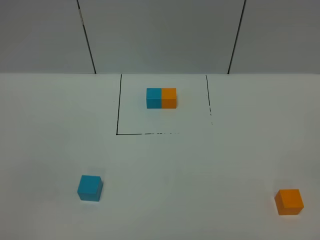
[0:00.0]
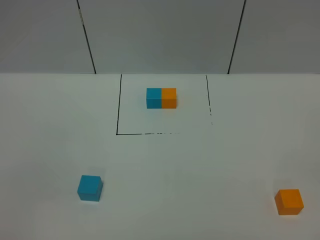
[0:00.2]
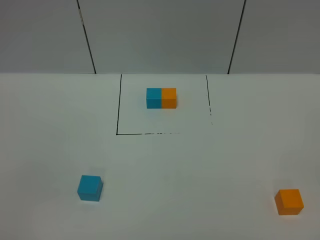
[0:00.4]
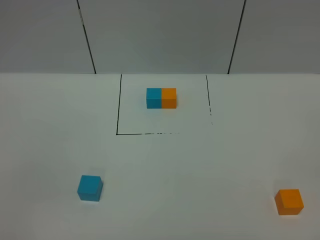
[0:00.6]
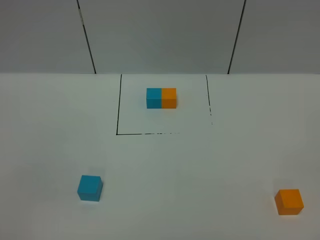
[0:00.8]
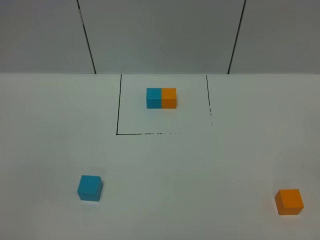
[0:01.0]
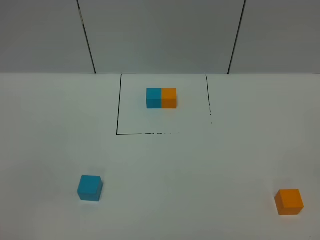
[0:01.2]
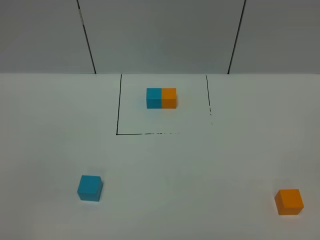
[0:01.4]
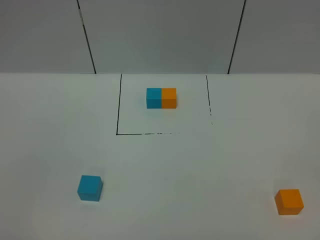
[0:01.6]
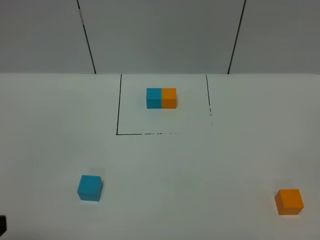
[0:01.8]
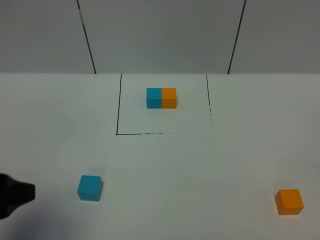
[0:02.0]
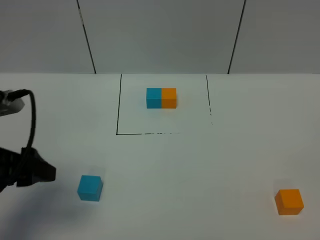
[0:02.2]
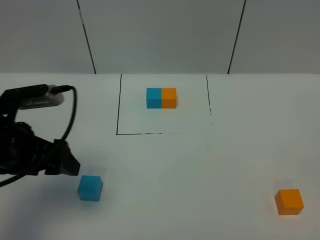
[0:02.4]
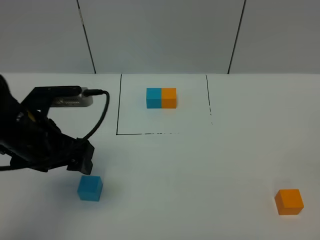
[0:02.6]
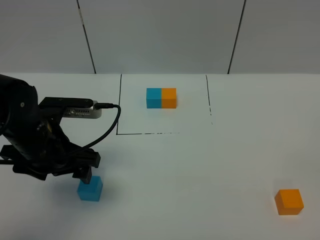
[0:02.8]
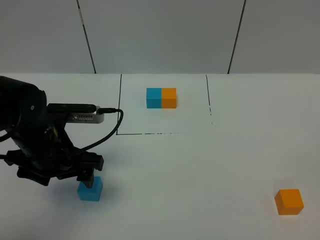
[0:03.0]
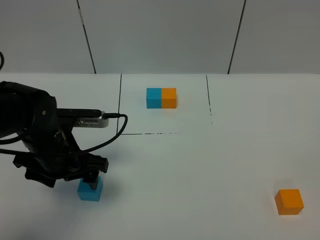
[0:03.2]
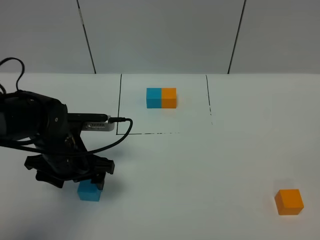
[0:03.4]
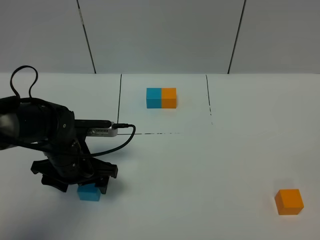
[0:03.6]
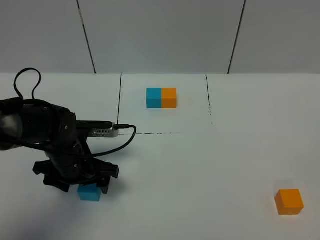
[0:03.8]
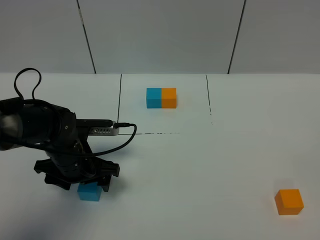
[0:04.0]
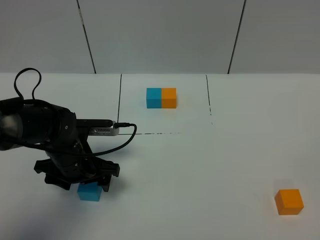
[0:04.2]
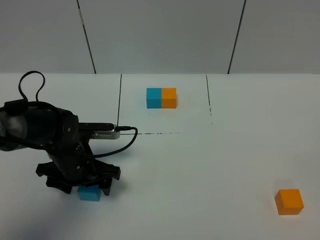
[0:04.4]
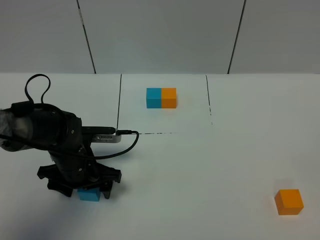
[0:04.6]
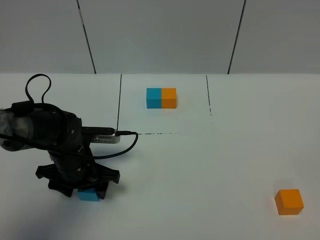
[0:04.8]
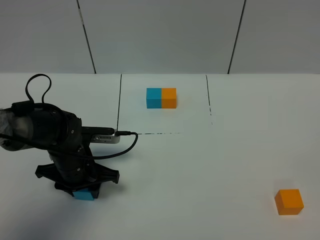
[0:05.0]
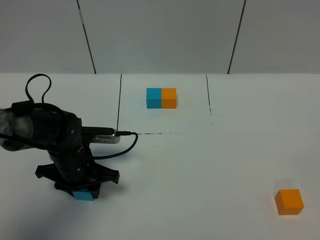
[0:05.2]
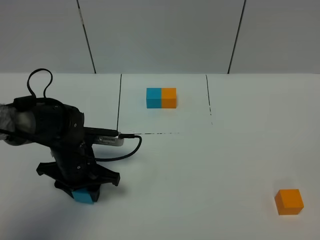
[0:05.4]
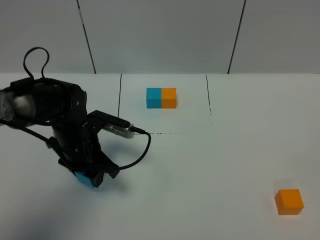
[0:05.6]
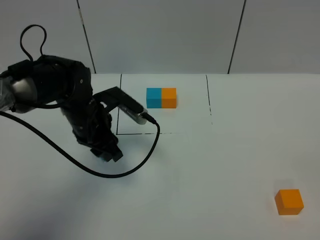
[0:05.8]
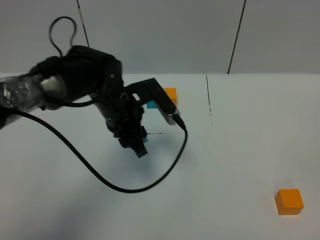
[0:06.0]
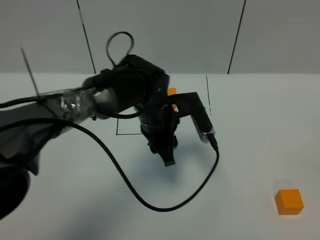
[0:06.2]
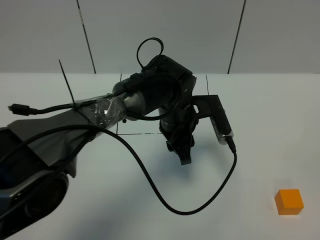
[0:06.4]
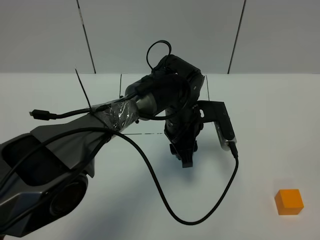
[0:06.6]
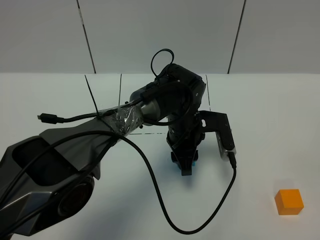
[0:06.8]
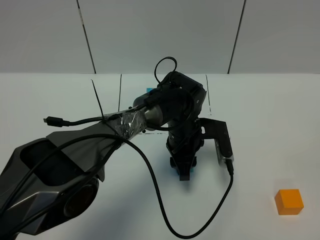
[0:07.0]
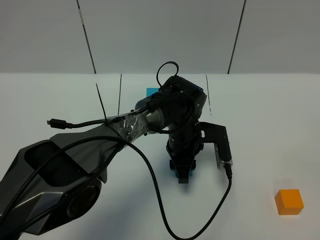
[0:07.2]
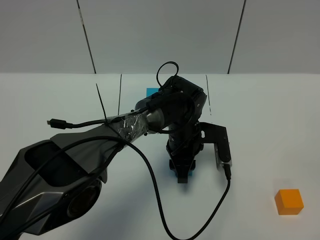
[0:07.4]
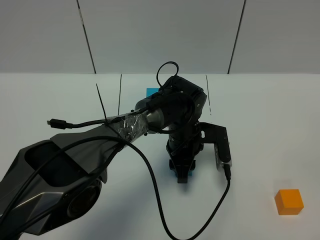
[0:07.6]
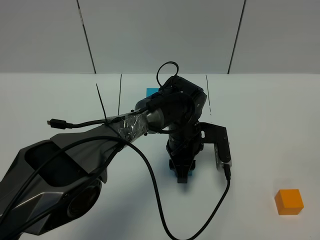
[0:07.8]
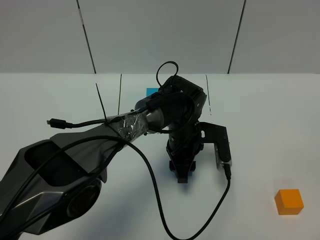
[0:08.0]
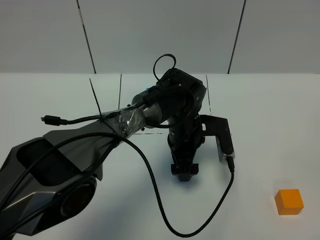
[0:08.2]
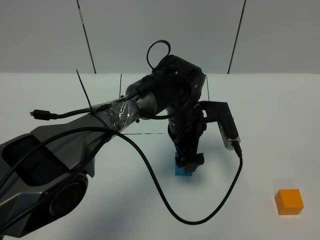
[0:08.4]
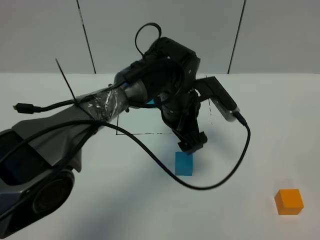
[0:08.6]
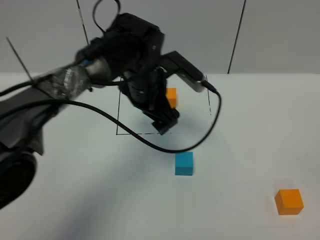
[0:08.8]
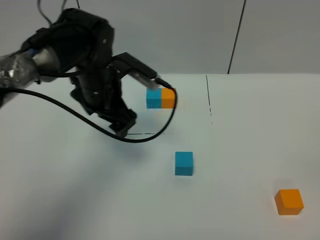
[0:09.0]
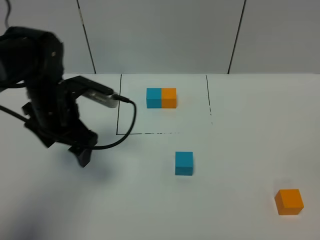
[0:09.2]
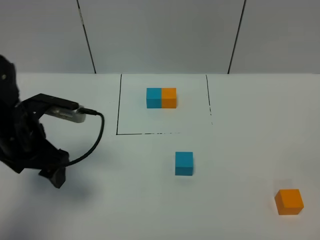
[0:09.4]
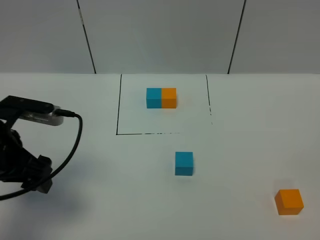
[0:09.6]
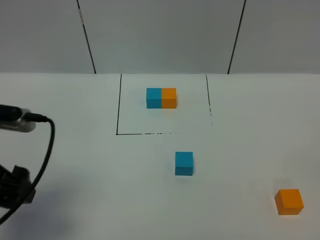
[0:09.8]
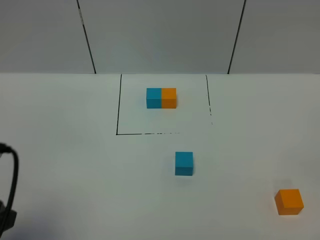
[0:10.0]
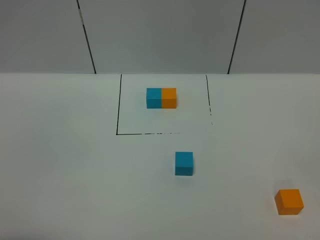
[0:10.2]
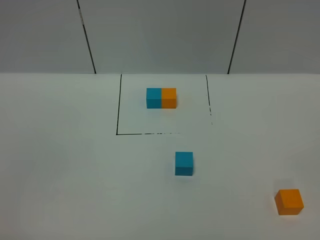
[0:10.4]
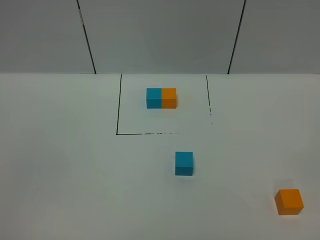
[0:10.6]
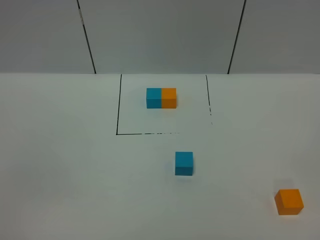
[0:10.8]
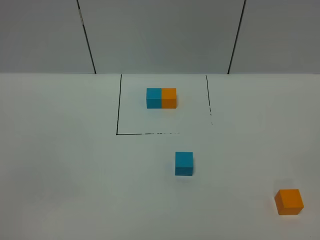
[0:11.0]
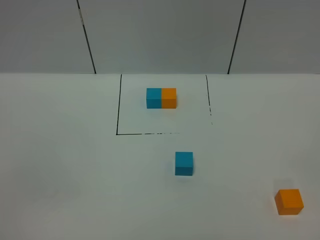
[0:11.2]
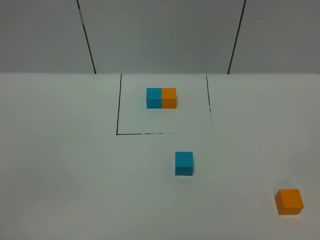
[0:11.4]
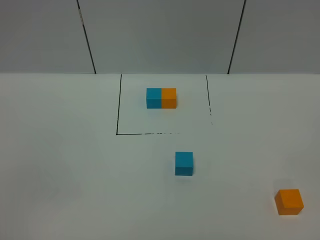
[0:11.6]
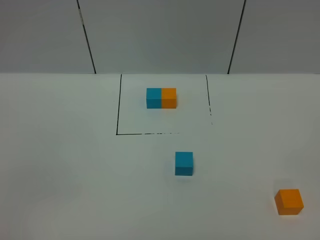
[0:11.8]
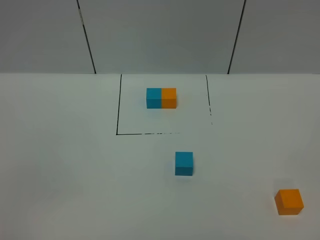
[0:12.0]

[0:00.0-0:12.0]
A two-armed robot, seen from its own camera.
Task of the whole recording: According to the building block template in front, assemble the scattered blocks together.
Step, 0:01.8 to 0:08.6: Put the blue cube in the center of the table.
0:01.6 to 0:03.0: The left gripper is displaced forward by about 25 cm.
0:03.0 to 0:04.4: The left gripper travels downward by some 10 cm.
0:04.4 to 0:06.0: The left gripper shifts about 15 cm to the right, upward and forward, and closes up.
0:06.0 to 0:07.6: The left gripper shifts approximately 15 cm to the right and downward.
0:07.6 to 0:09.0: The left gripper shifts some 20 cm to the left and upward, and opens.
0:09.0 to 0:10.4: The left gripper heads backward and to the left, covering some 40 cm.

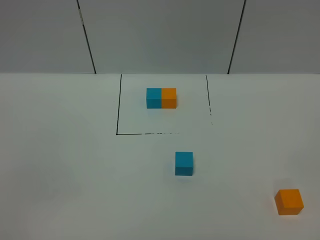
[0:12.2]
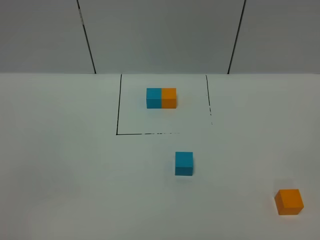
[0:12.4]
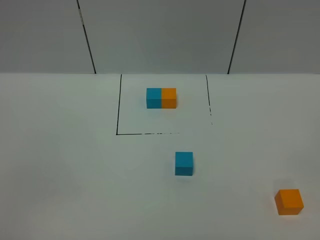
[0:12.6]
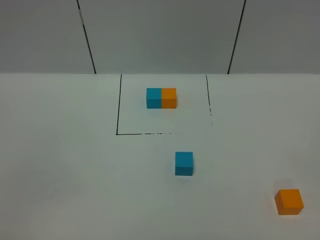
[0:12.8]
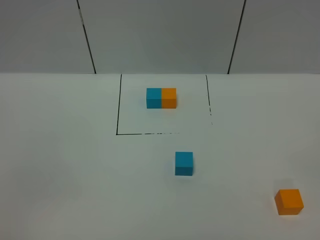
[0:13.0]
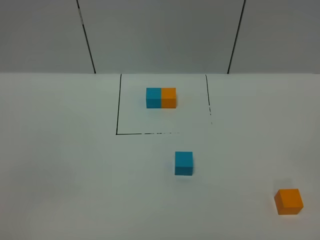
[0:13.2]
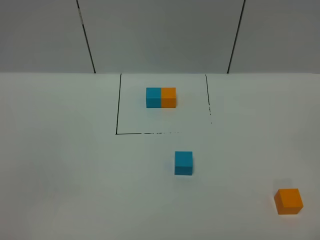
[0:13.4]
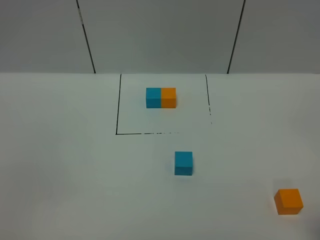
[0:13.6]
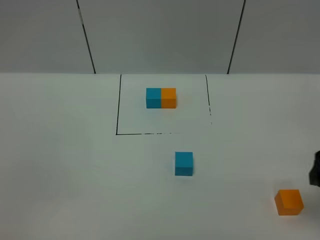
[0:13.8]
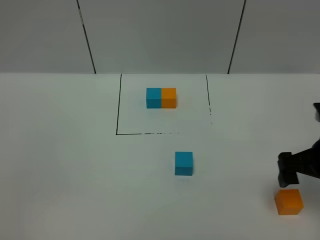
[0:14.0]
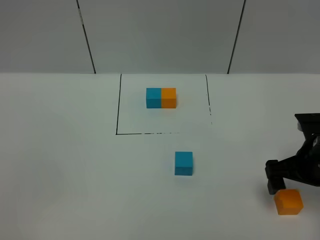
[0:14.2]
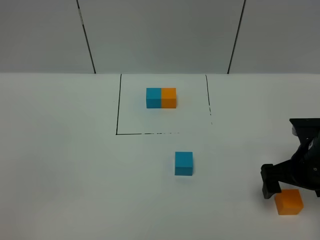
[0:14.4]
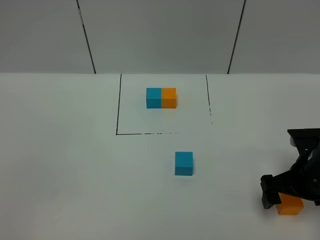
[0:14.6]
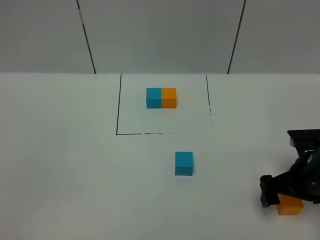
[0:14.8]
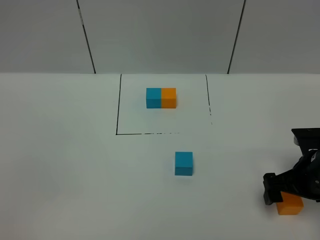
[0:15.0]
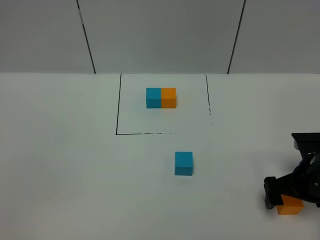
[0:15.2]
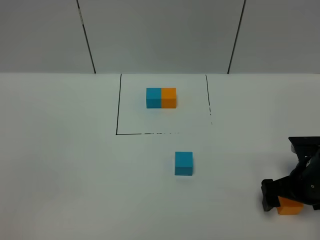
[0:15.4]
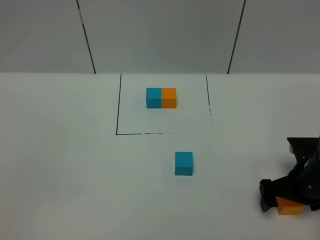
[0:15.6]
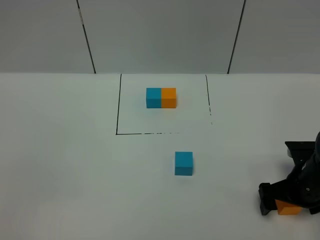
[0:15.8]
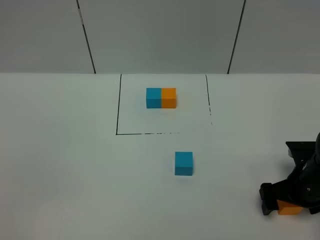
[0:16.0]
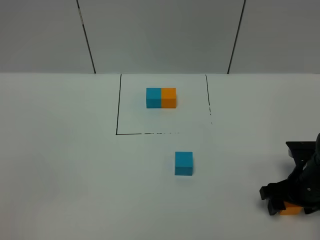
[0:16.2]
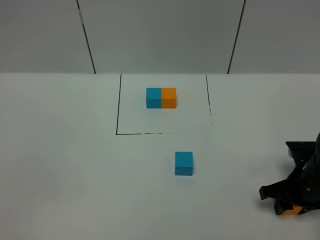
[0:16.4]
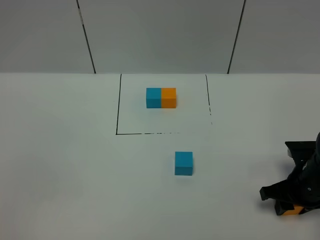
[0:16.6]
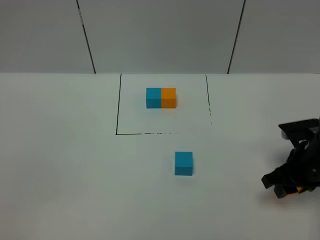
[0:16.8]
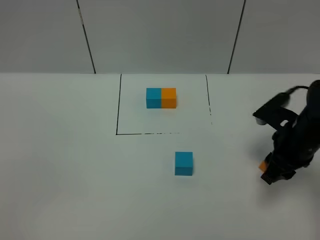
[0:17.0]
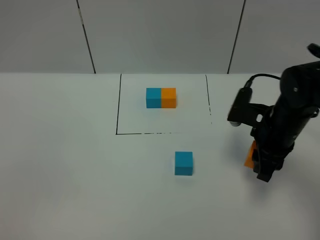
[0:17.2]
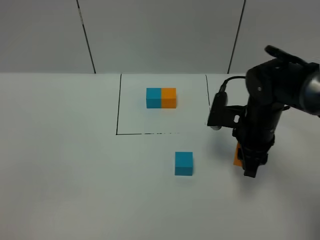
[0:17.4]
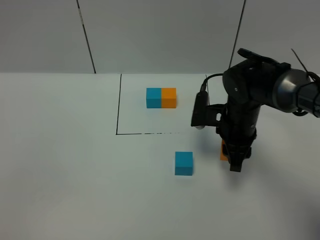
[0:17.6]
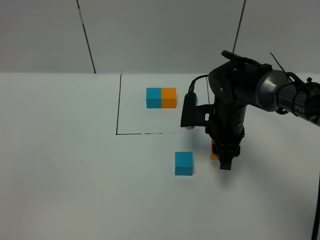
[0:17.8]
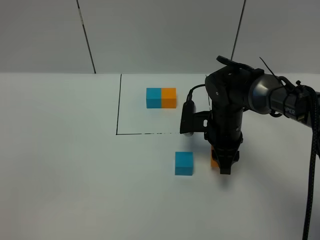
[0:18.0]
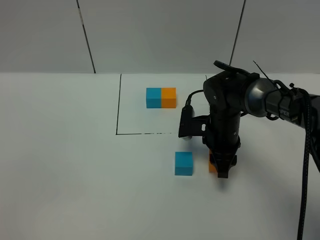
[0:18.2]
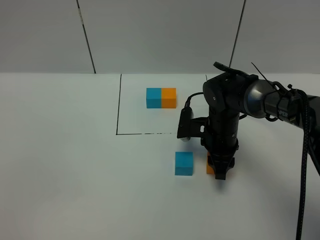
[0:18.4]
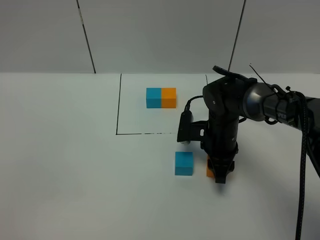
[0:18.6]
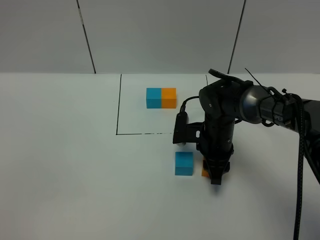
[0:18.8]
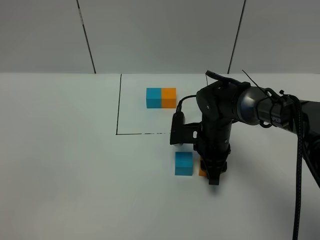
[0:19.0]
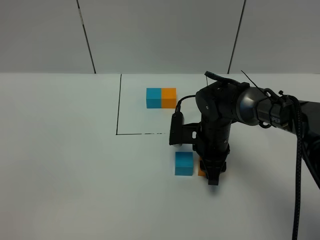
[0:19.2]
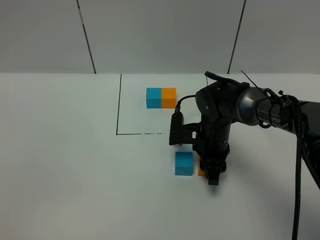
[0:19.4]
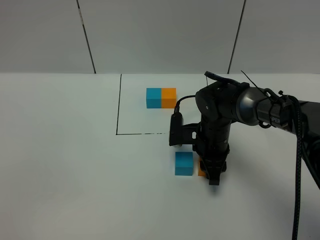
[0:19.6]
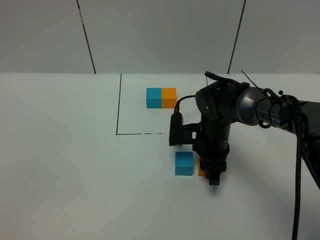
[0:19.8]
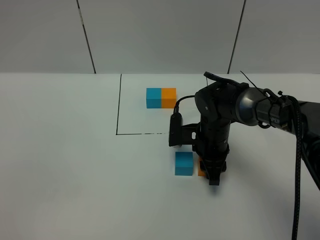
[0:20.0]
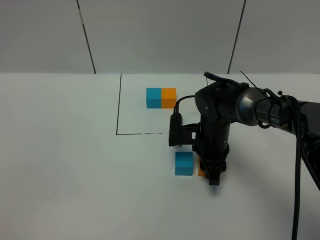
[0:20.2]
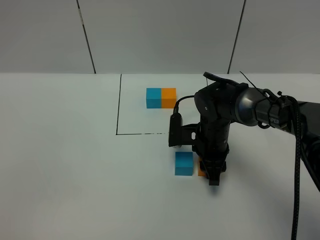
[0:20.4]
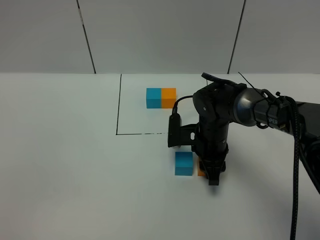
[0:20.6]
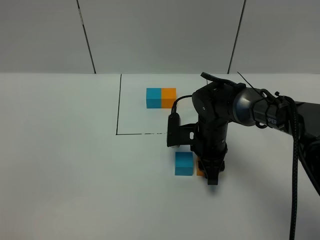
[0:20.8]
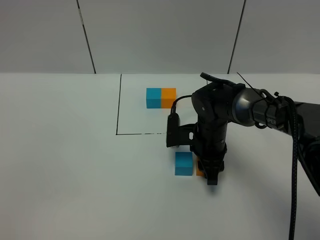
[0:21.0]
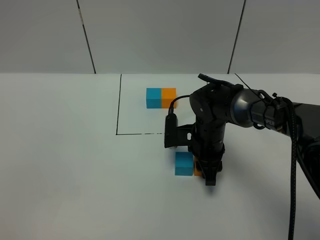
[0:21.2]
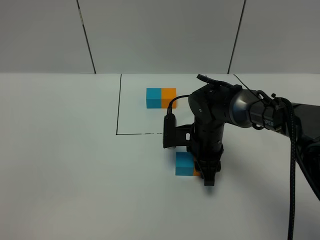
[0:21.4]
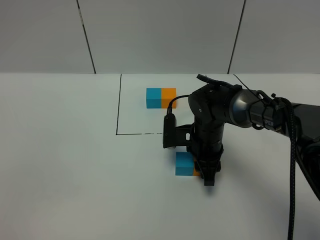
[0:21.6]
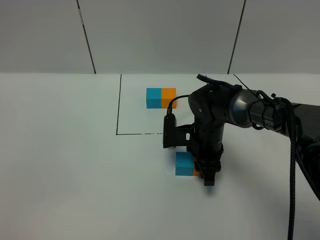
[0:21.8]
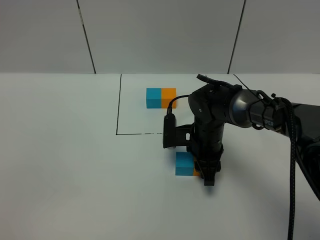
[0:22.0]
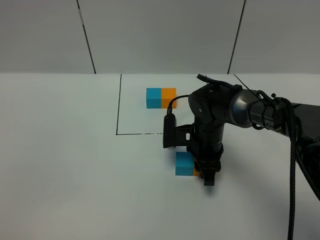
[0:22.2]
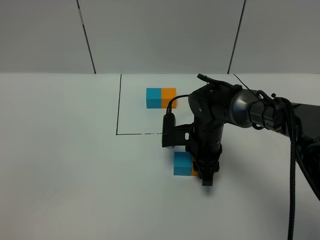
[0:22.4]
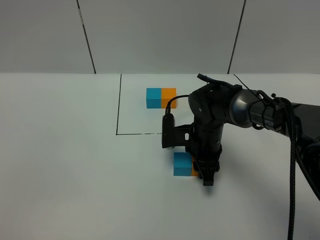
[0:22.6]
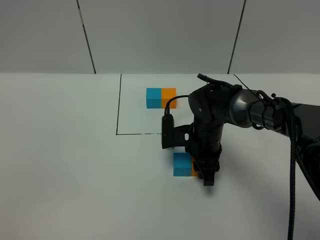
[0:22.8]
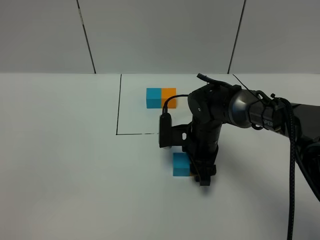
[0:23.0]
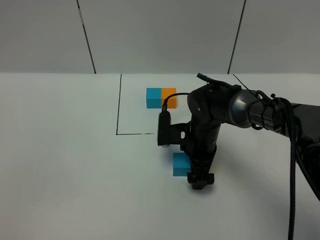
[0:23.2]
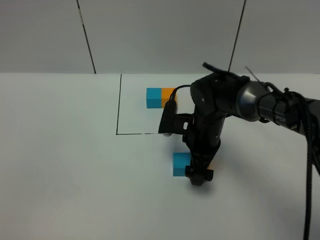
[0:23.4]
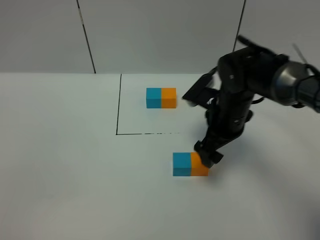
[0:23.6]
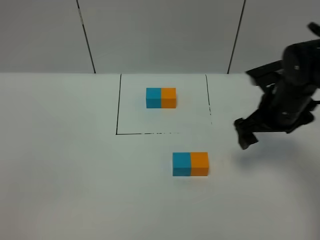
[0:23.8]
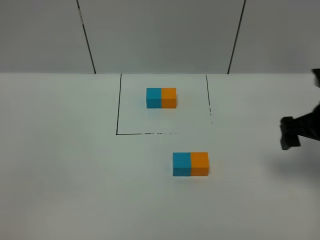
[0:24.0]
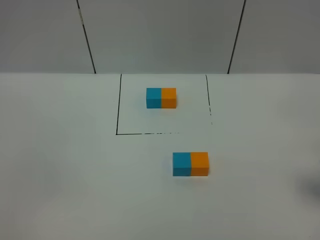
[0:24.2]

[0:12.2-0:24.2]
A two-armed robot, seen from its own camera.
Task of the whole recording: According to the building block template in front, assemble the scattered blocks together.
Step, 0:12.2 to 0:23.6: Put the orange cube on the right of the blue cube.
0:12.2 to 0:13.8: The right gripper moves forward, roughly 20 cm.
0:13.8 to 0:15.2: The right gripper travels downward and forward by approximately 15 cm.
0:15.2 to 0:16.6: The right gripper closes up.
0:16.6 to 0:18.2: The right gripper heads to the left and forward, covering approximately 20 cm.
0:18.2 to 0:19.8: The grippers stay close to where they were, moving slightly.
0:19.8 to 0:21.2: Both grippers stay put.
0:21.2 to 0:22.6: Both grippers stay about where they are.
0:22.6 to 0:24.2: The right gripper shifts approximately 30 cm to the right, upward and backward, and opens its fingers.
